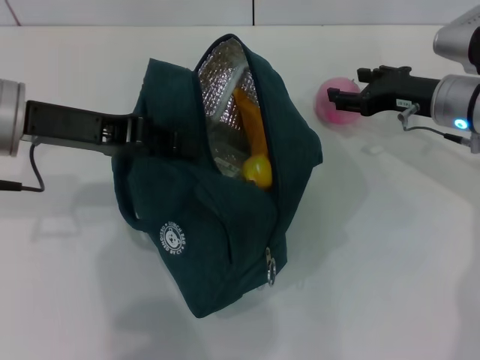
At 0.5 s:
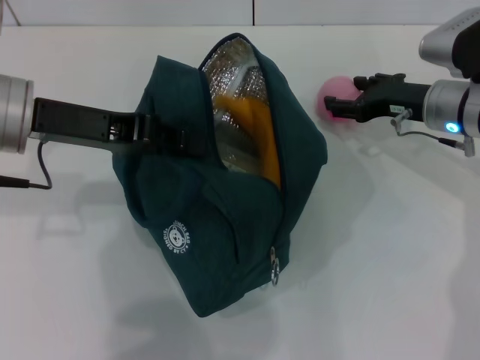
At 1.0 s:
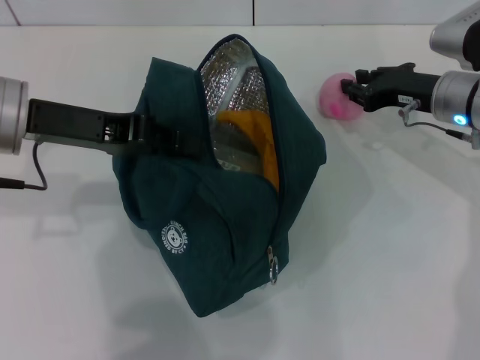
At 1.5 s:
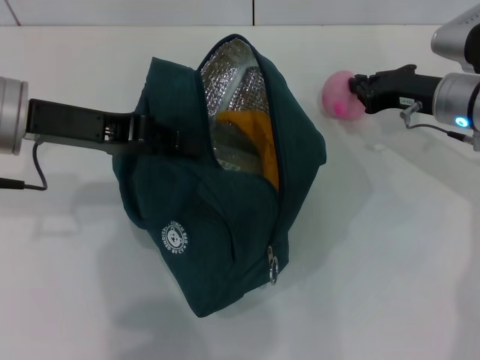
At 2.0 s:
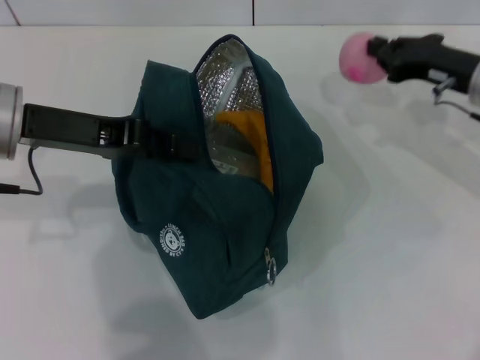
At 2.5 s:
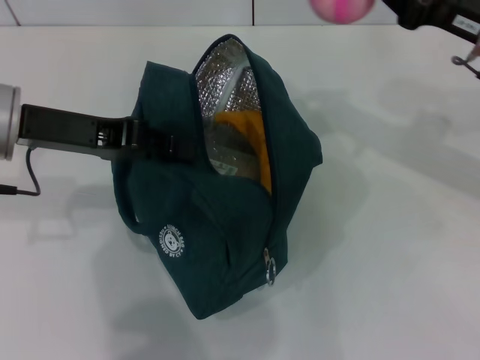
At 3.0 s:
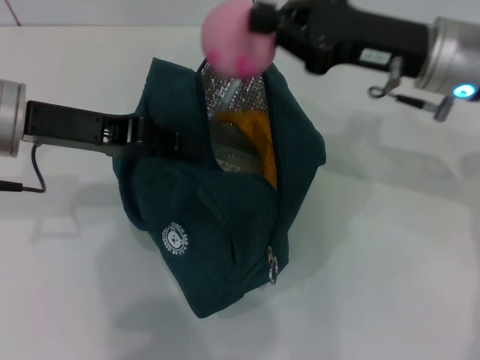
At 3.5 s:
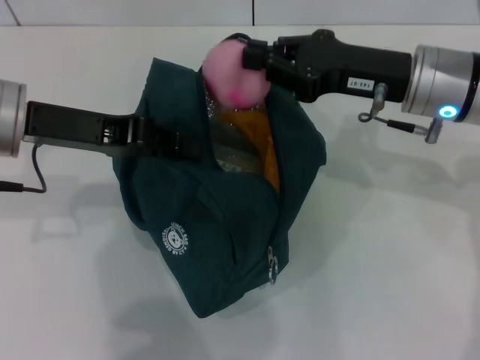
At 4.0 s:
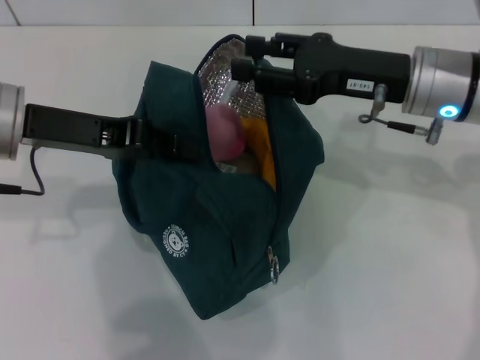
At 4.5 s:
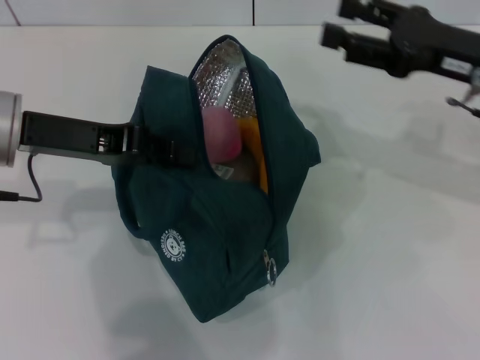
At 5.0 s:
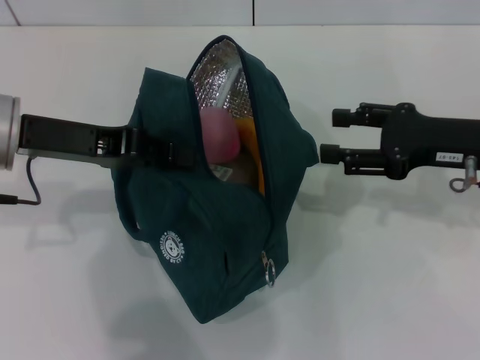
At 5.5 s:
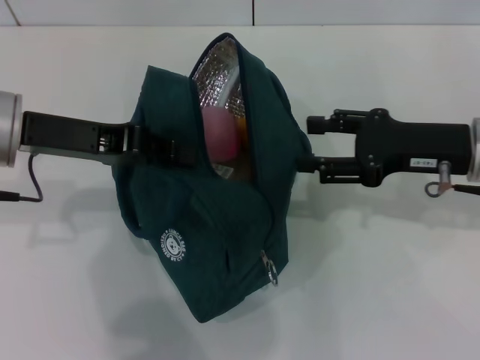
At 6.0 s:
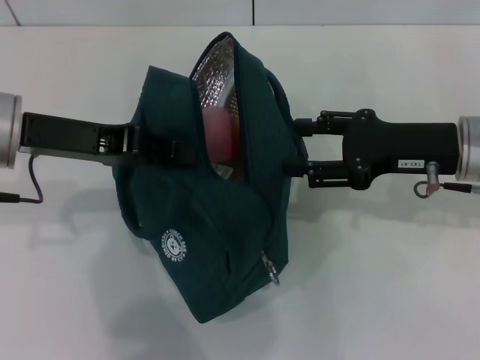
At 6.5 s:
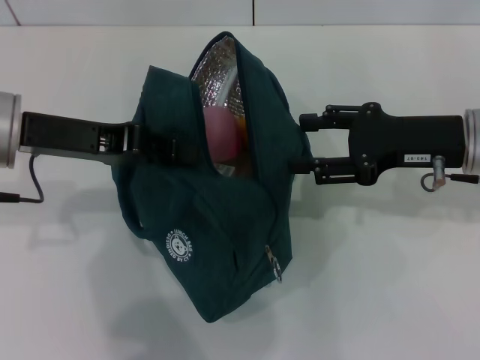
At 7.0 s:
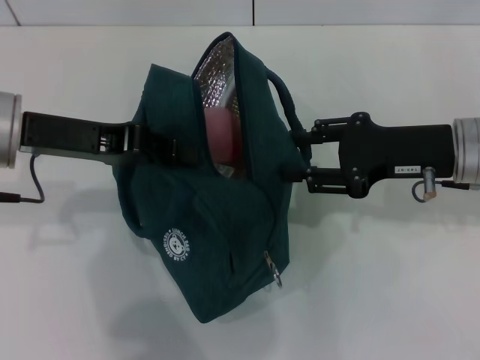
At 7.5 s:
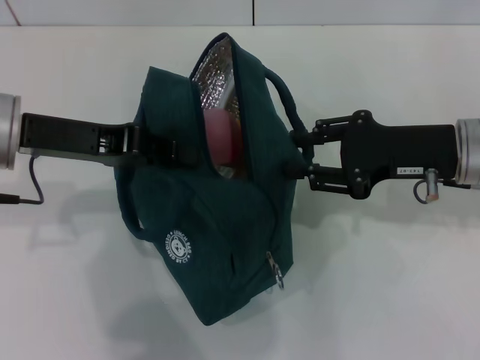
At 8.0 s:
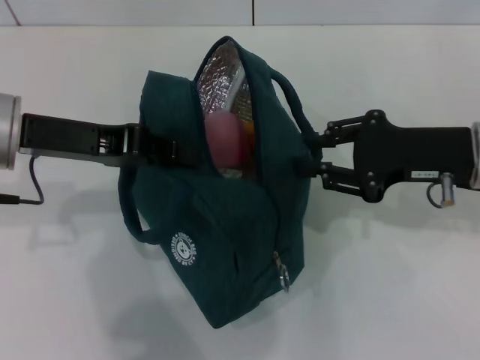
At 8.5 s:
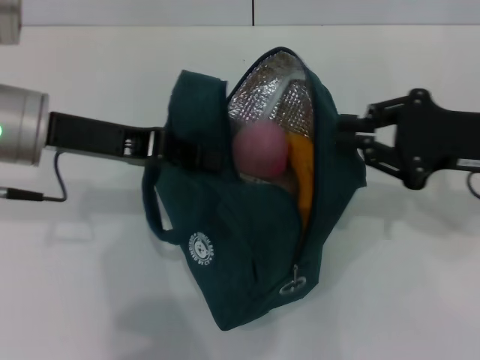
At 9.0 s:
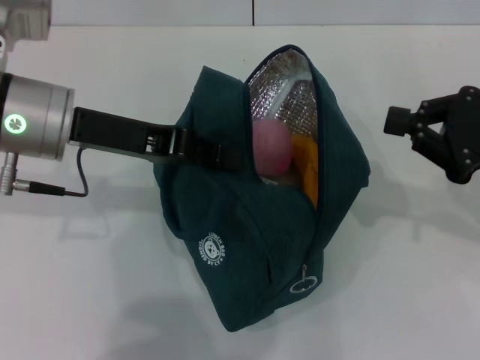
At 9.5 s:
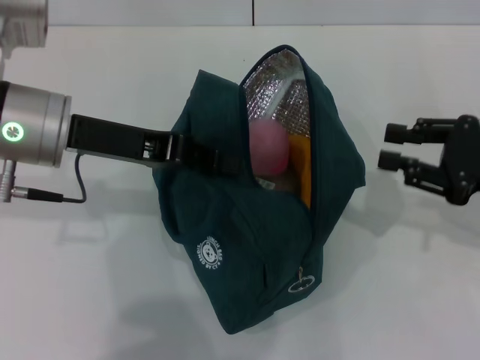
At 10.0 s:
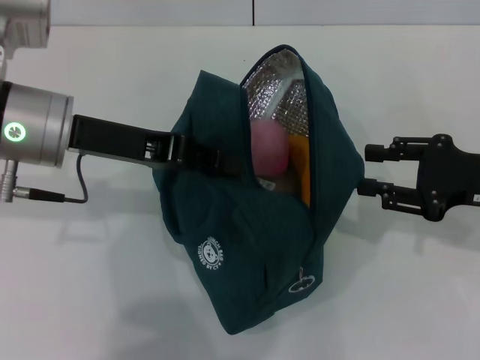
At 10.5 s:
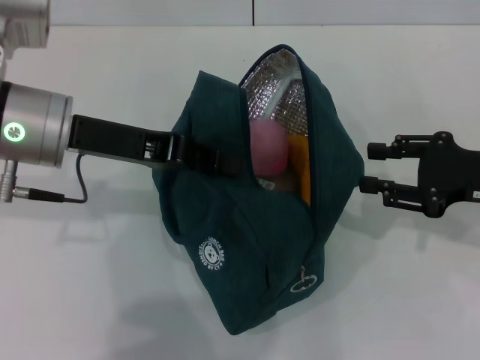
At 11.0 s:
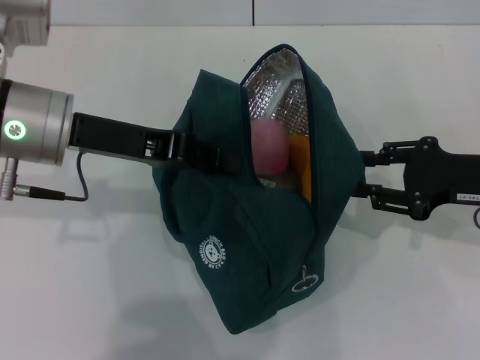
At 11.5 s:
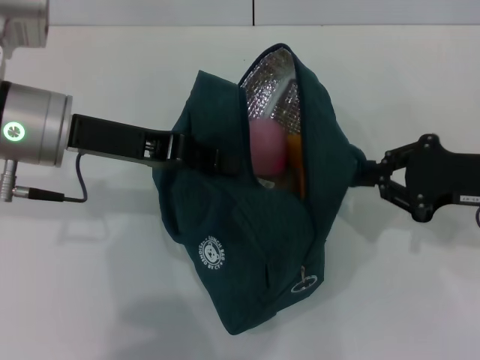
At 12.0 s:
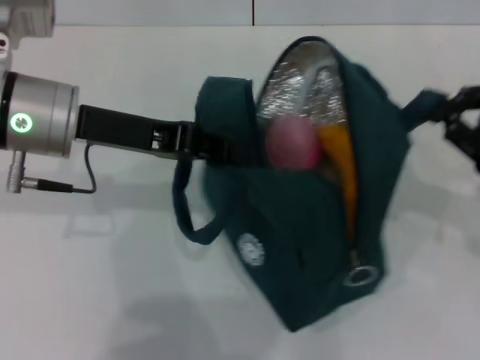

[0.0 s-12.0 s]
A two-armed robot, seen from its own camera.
0.0 to 2.0 s: The right gripper closes up.
2.0 to 4.0 s: The right gripper moves to the left, about 10 cm, and opens up.
4.0 to 6.0 s: The right gripper shifts by approximately 5 cm, and opens its fingers.
6.0 to 8.0 s: The right gripper closes its fingers.
8.0 to 10.0 s: The right gripper goes approximately 5 cm to the right, and closes and opens again.
10.0 to 12.0 s: The right gripper closes its fingers.

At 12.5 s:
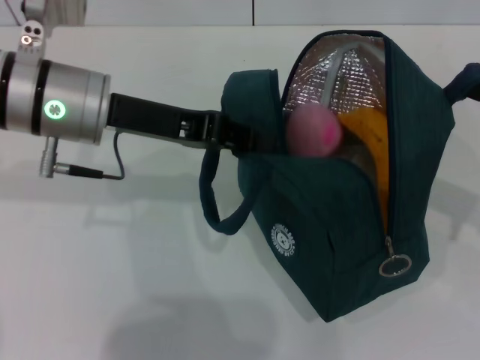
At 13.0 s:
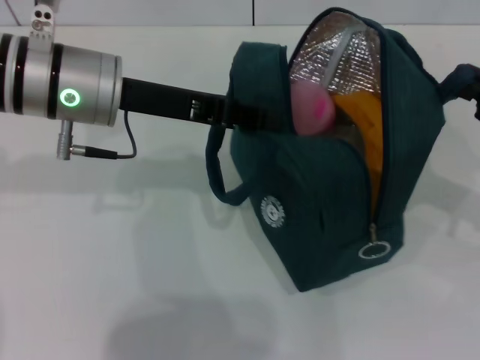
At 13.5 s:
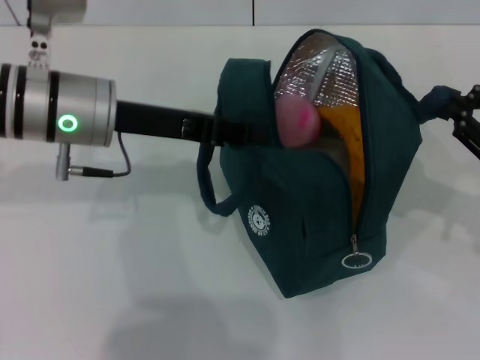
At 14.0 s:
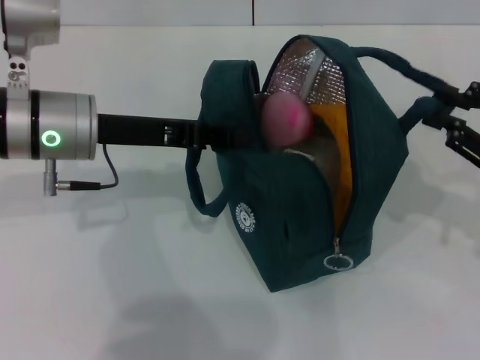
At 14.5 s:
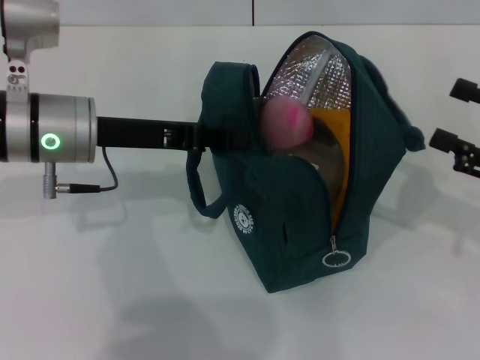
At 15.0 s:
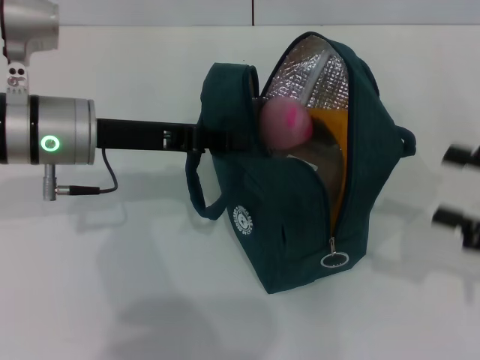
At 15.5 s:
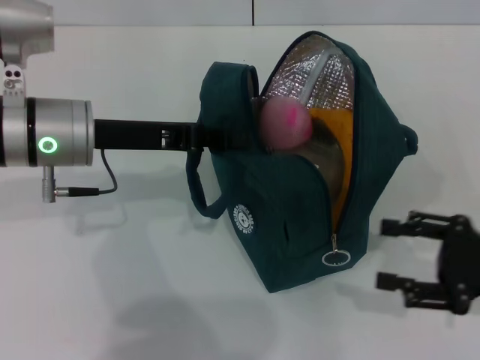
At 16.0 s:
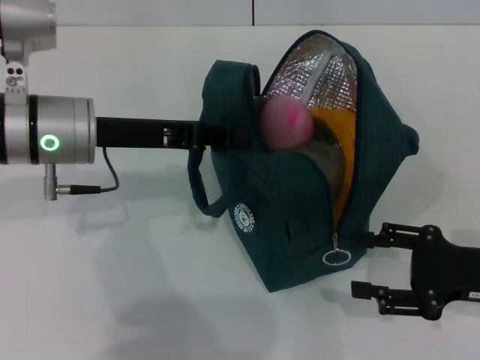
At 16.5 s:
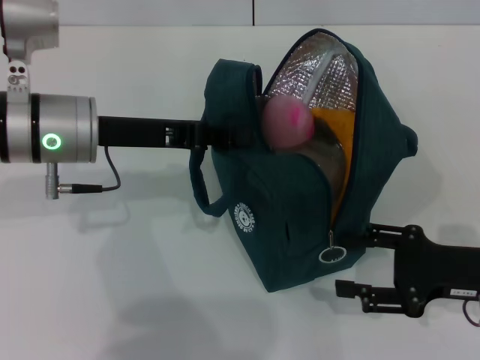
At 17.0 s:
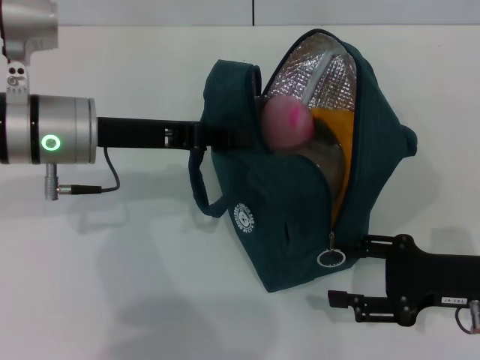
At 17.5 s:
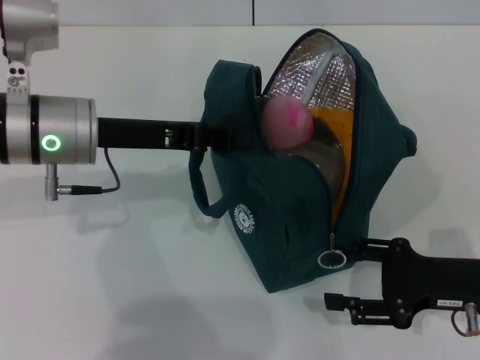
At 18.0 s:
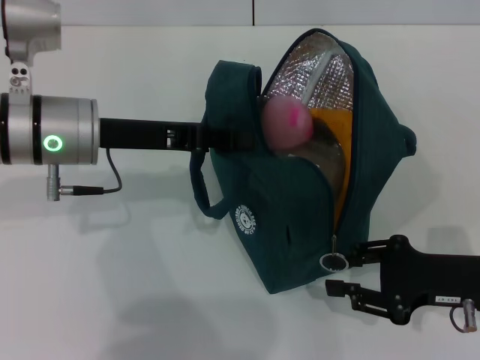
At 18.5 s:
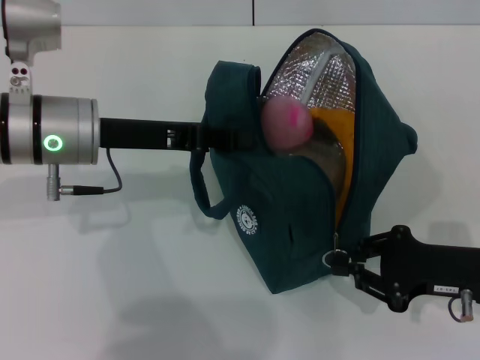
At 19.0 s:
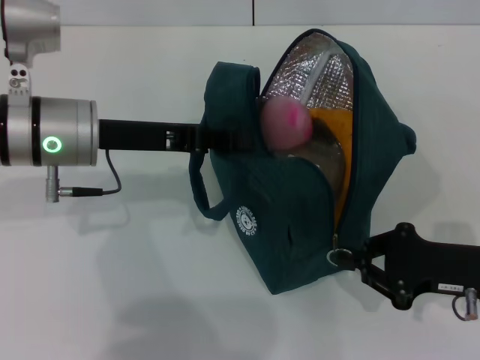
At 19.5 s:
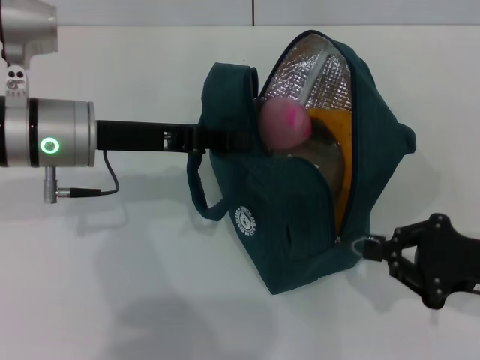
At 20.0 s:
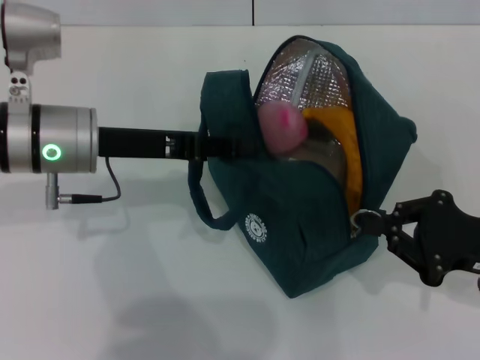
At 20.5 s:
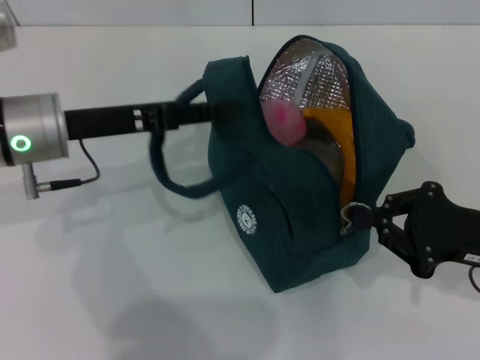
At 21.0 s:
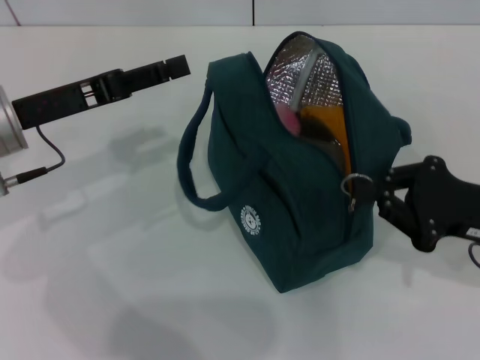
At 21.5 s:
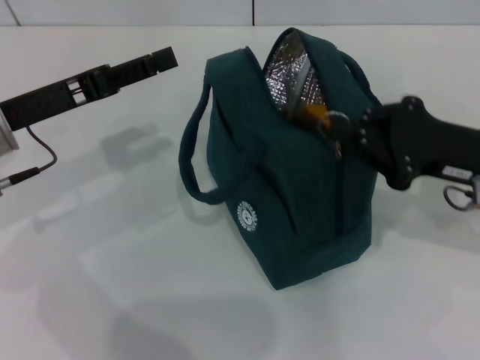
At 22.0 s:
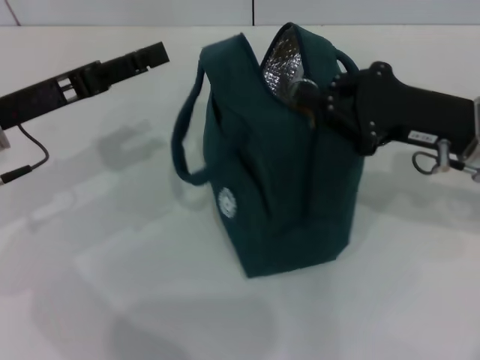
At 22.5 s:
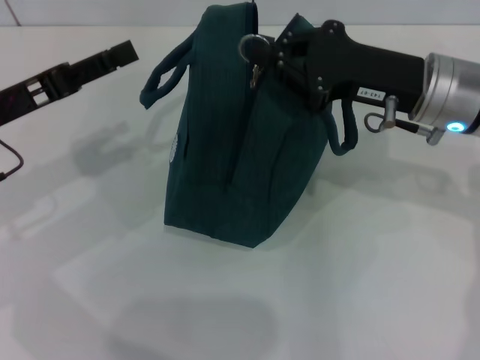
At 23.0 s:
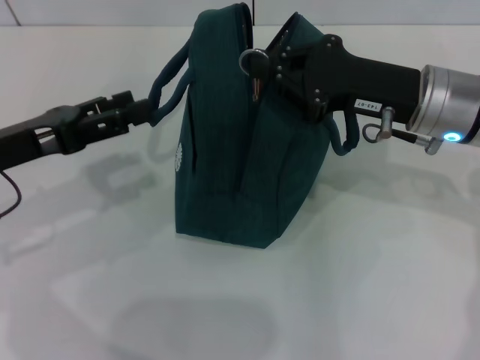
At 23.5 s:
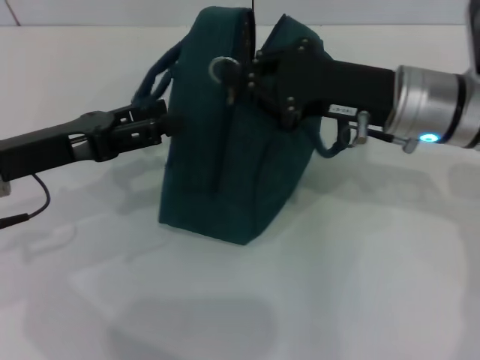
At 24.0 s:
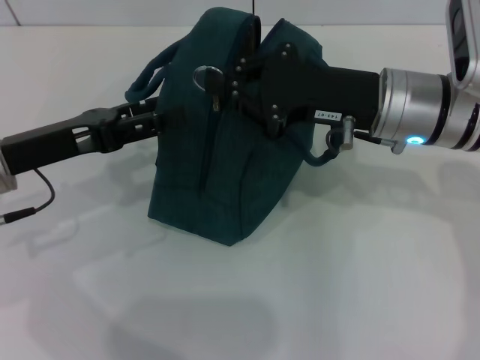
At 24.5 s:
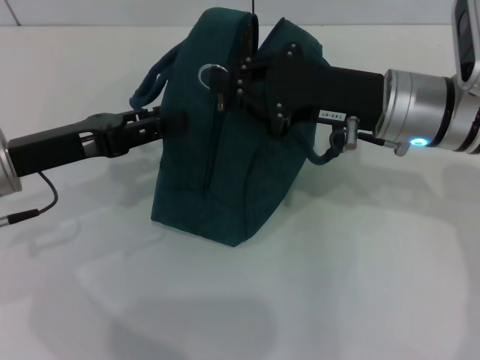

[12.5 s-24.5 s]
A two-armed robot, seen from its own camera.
Step, 12.5 to 14.5 s: Hold the lunch bag with your right hand.
Step, 15.0 to 20.5 s: Hold the lunch bag with your left hand.
12.5 to 14.5 s: The right gripper opens.
14.5 to 16.5 s: The right gripper travels downward and to the left by roughly 10 cm.
16.5 to 18.5 s: The right gripper closes up.
18.5 to 20.5 s: The left gripper opens.
20.5 to 22.5 s: The right gripper is displaced forward, to the left and upward by approximately 15 cm; the left gripper heads to the left, covering about 5 cm, and opens up.

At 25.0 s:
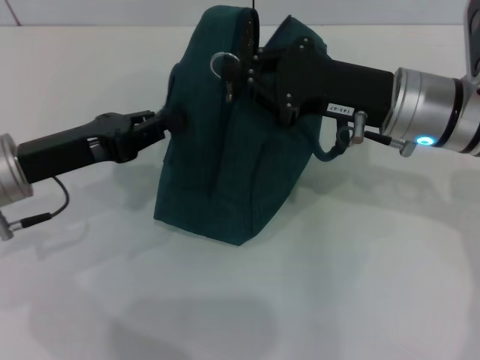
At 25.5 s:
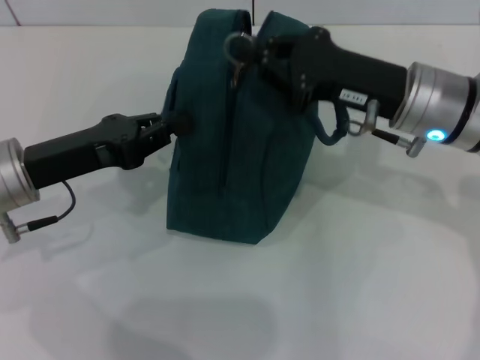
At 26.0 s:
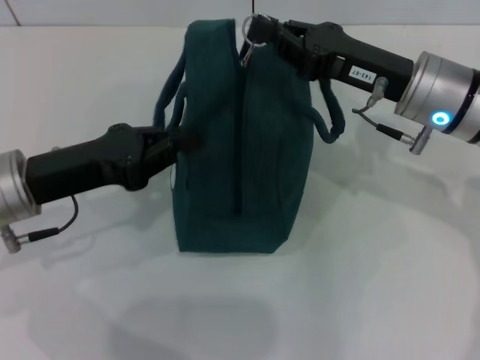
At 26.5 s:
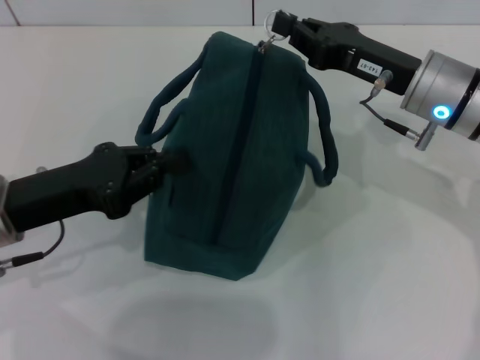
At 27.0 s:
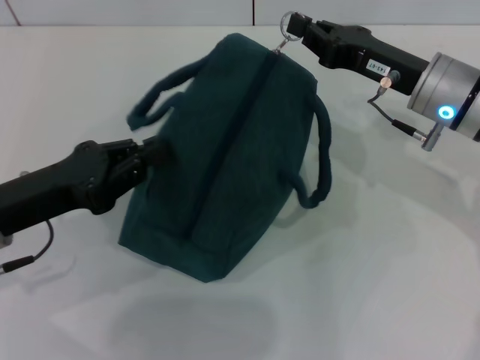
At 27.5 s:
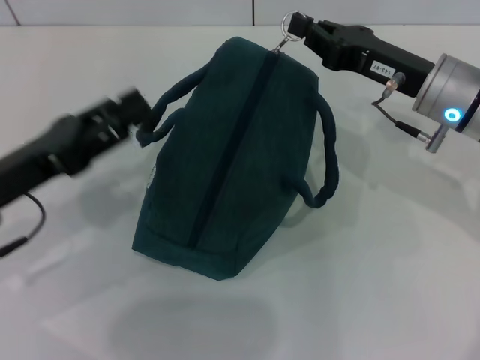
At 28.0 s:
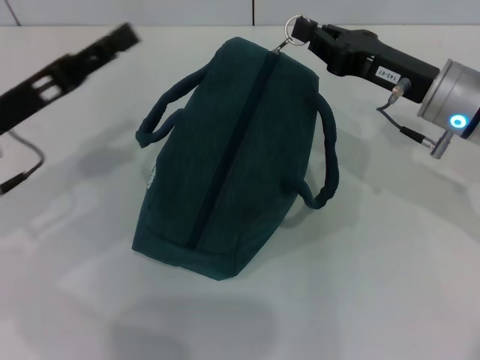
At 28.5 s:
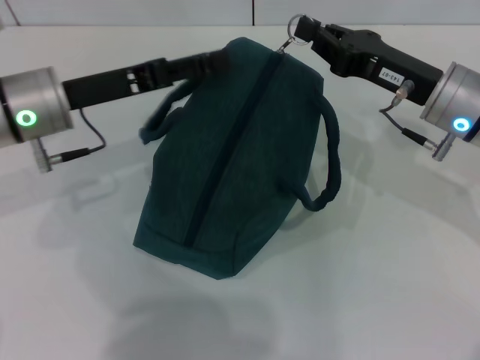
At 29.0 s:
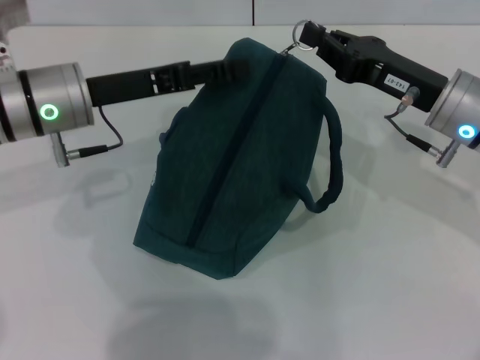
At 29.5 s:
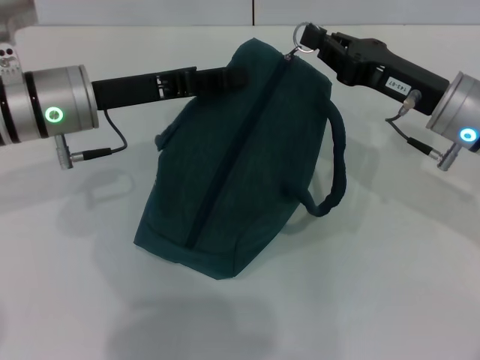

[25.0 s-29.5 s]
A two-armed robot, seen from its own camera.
27.0 to 29.5 s: The left gripper heads forward and to the right, covering approximately 15 cm, and opens, then closes again.
